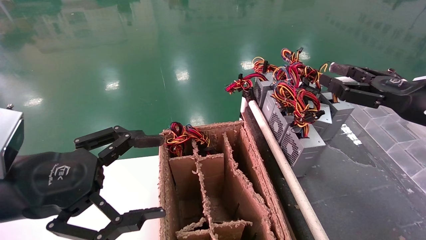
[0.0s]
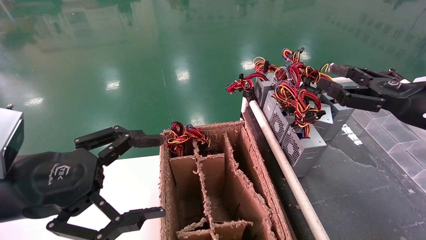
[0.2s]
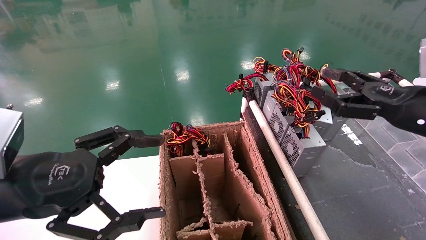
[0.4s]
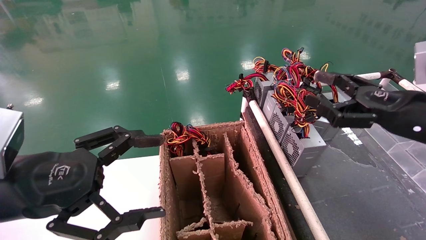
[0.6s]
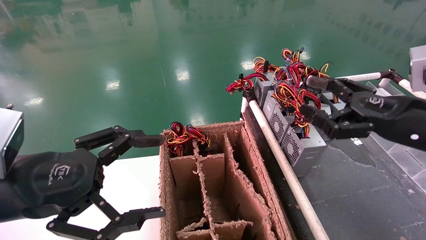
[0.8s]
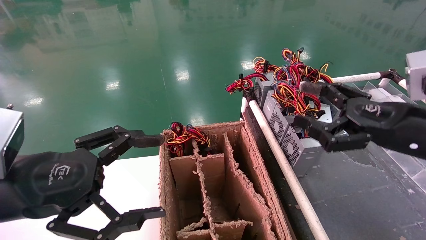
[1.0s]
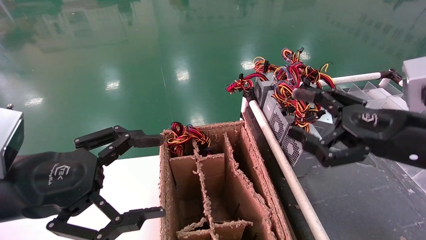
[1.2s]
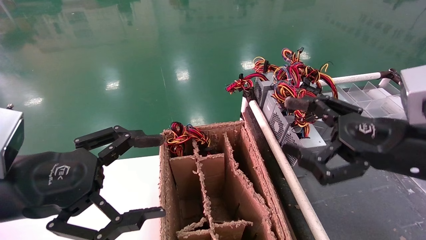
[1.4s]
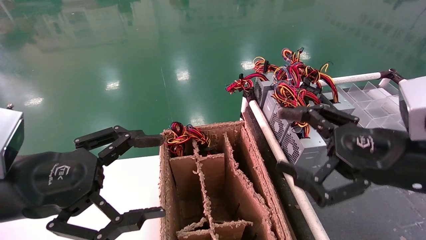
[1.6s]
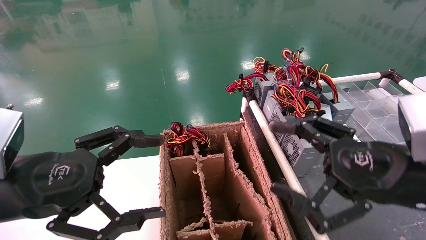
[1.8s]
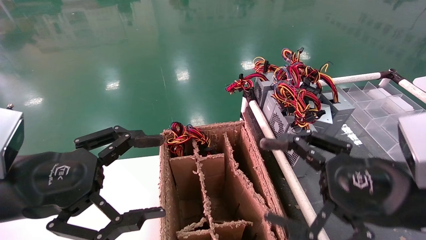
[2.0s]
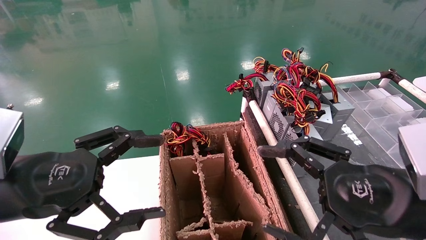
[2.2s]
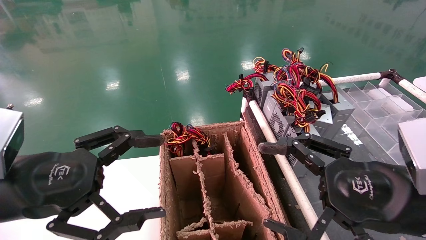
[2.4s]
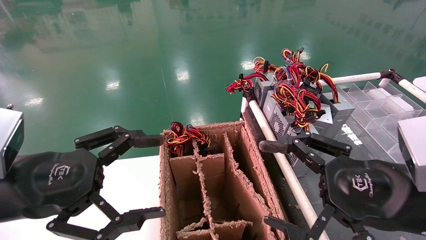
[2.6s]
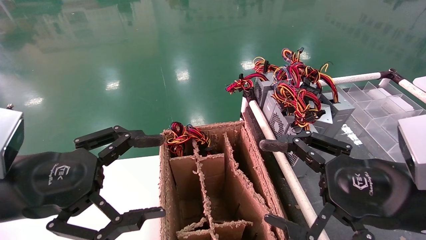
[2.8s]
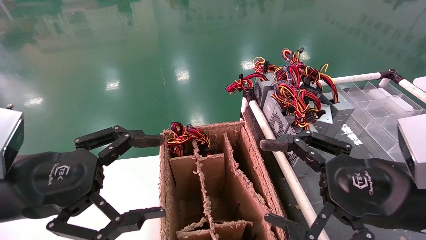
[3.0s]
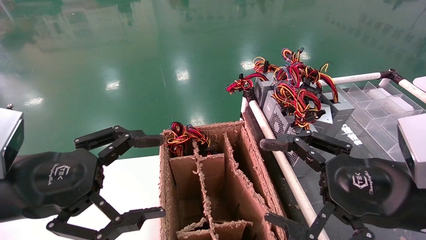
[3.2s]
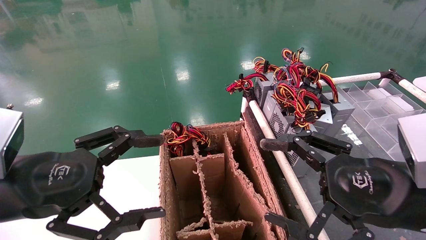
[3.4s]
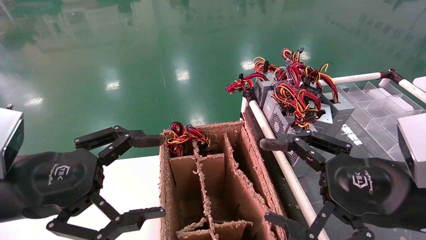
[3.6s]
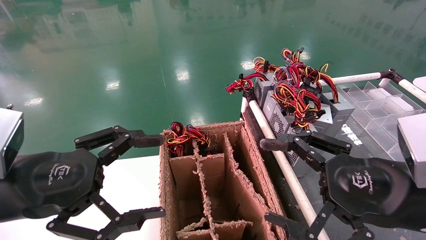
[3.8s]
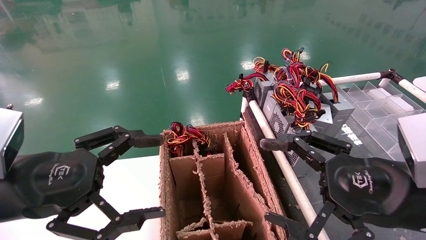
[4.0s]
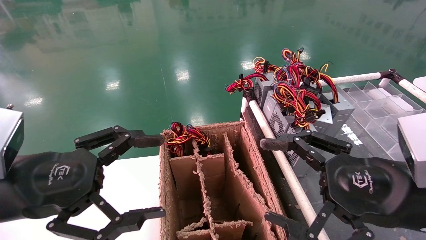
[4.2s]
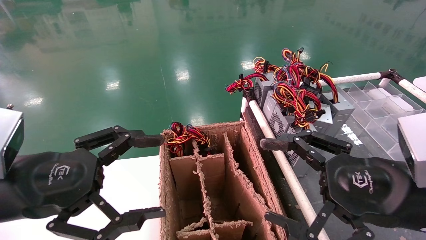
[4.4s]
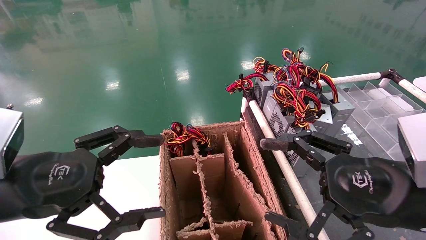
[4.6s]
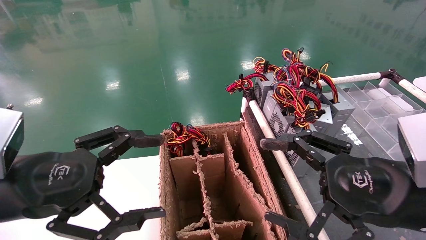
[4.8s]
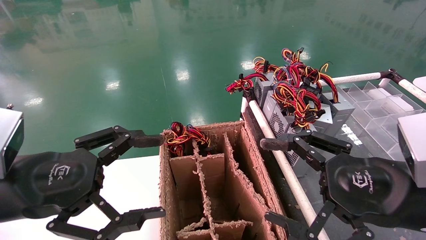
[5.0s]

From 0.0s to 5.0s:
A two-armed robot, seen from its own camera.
From 0.0s to 1.6s: The right gripper goes about 15 cm to the left and backward, and opens.
From 1.6s to 3.4s: The grippers make only small movements.
From 3.4s to 5.0s: Both grippers stay about where they are.
